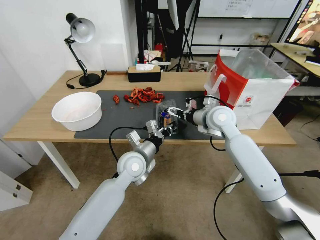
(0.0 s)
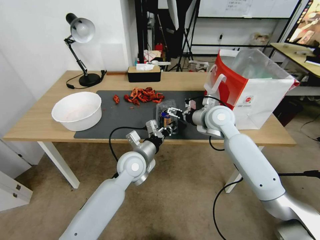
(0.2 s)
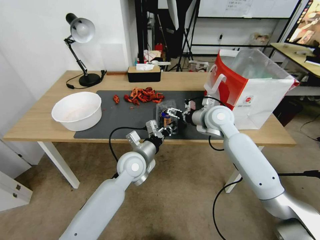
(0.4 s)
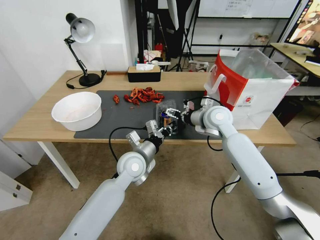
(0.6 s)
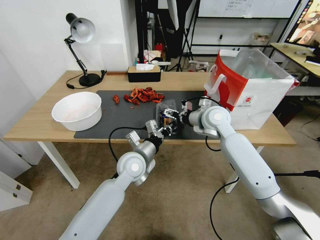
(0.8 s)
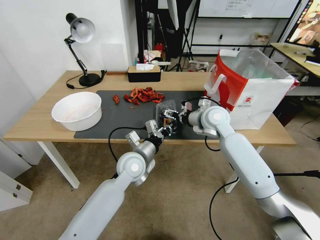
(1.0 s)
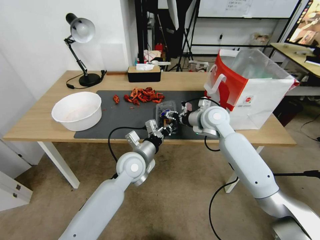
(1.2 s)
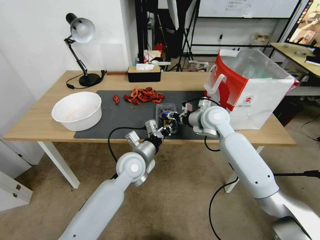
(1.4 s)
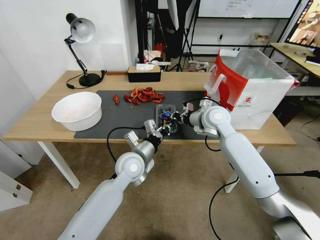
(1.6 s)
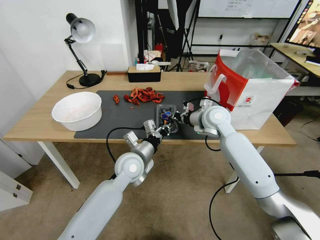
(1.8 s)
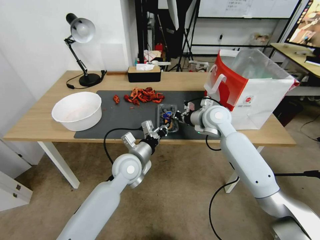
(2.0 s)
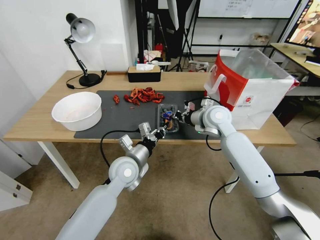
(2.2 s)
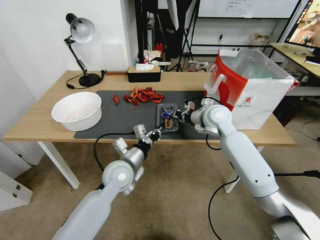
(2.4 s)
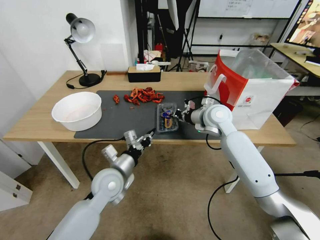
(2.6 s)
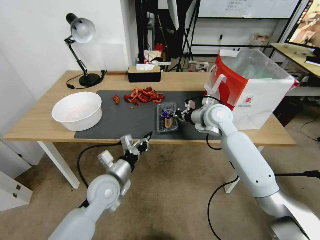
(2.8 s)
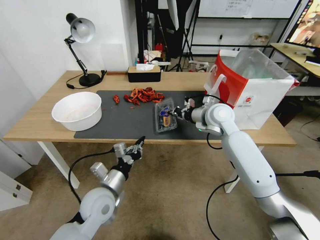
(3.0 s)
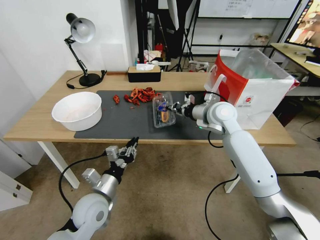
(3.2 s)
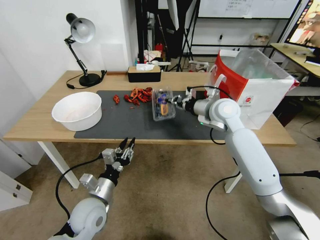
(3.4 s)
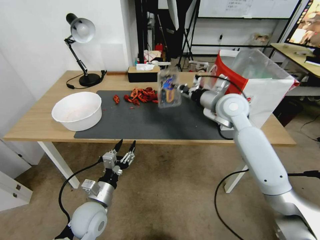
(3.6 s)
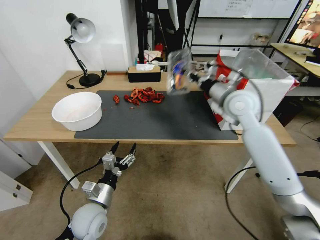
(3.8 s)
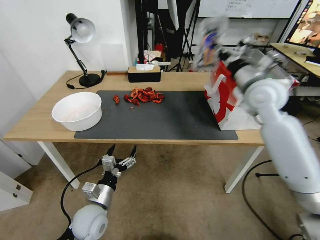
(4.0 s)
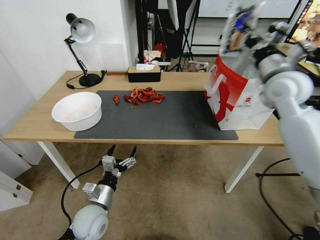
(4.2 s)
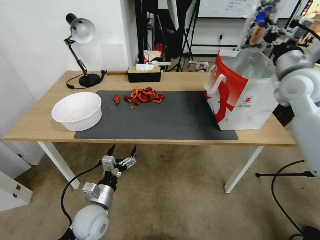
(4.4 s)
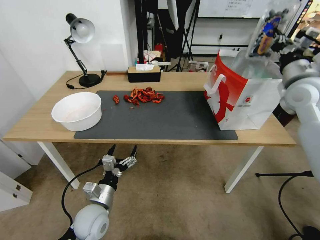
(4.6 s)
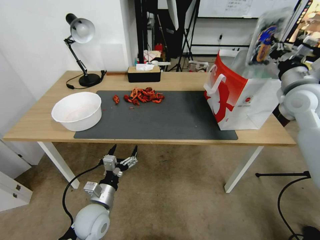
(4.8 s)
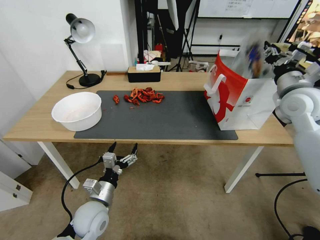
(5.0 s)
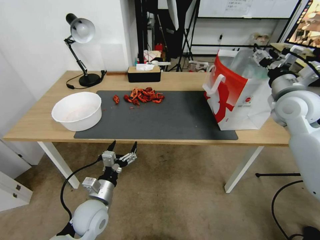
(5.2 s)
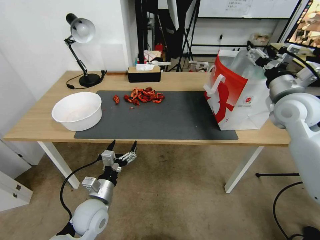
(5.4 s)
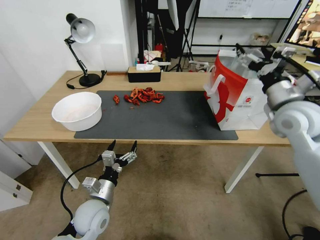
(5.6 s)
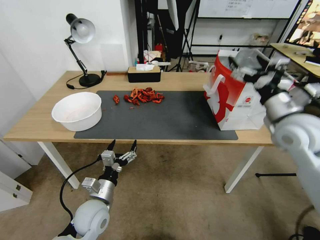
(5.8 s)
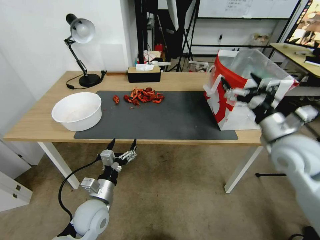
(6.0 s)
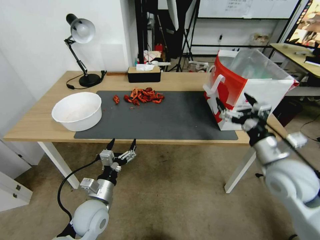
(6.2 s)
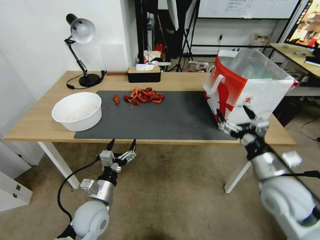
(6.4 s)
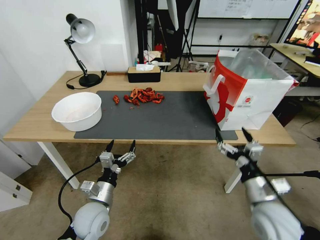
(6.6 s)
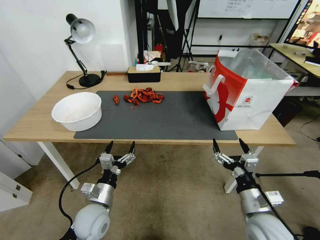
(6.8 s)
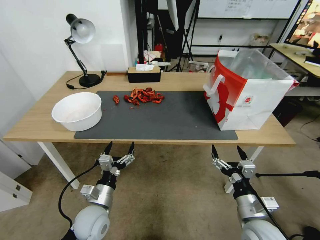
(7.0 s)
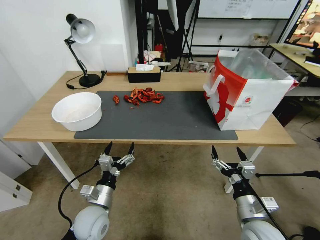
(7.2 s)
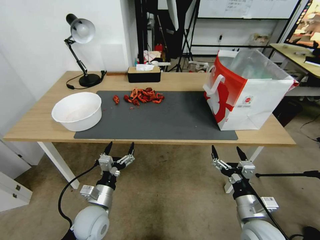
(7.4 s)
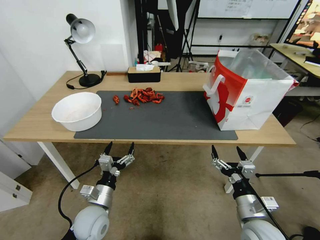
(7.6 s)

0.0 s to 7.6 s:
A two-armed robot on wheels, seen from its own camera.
Task of the whole recording: Close the takeout container lid, then place the container into the takeout bag.
0.0 to 1.6 s: The right gripper closes up.
1.6 to 3.0 s: The left gripper moves backward and to the left, approximately 15 cm.
3.0 to 4.6 s: The left gripper moves downward, some 5 cm, and opens; the right gripper heads to the right and upward, covering approximately 25 cm.
4.6 to 6.0 s: The right gripper shifts about 15 cm backward, downward and to the left, and opens its fingers.
6.0 to 7.6 s: The right gripper goes about 25 cm downward and backward.

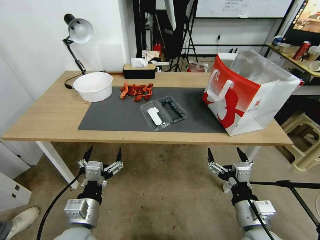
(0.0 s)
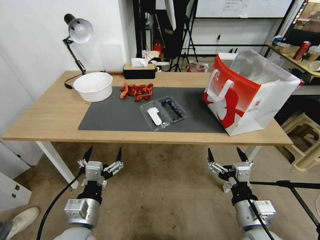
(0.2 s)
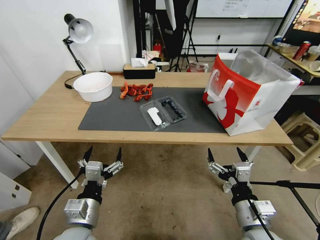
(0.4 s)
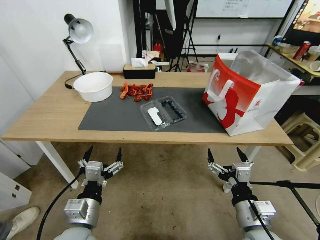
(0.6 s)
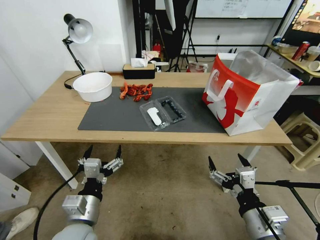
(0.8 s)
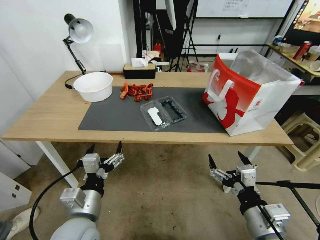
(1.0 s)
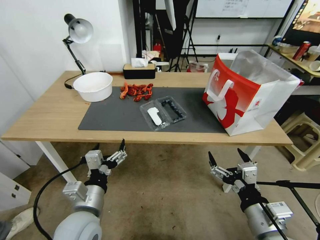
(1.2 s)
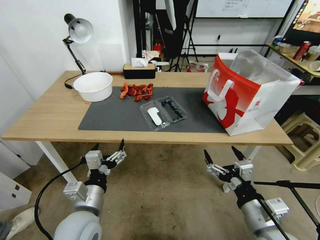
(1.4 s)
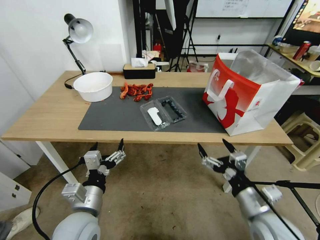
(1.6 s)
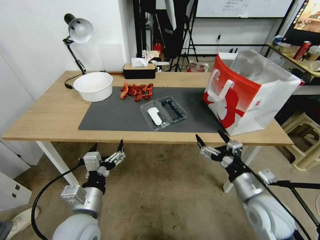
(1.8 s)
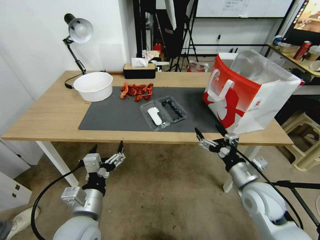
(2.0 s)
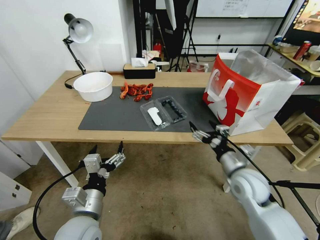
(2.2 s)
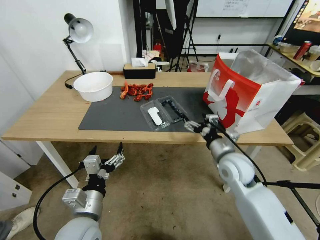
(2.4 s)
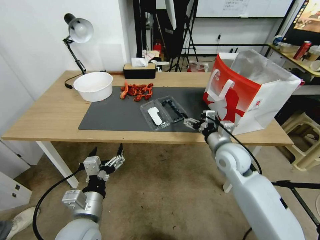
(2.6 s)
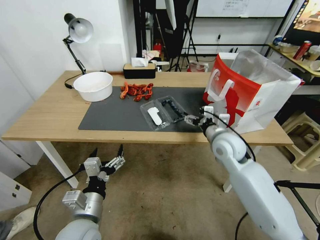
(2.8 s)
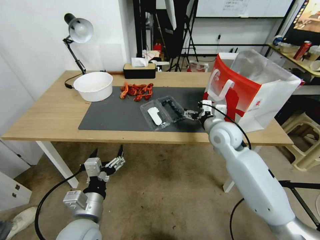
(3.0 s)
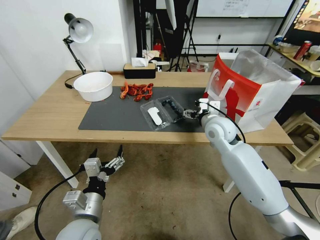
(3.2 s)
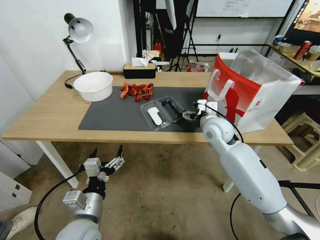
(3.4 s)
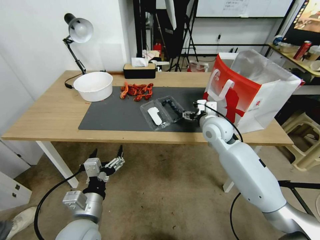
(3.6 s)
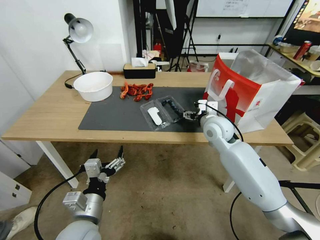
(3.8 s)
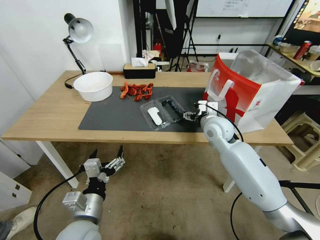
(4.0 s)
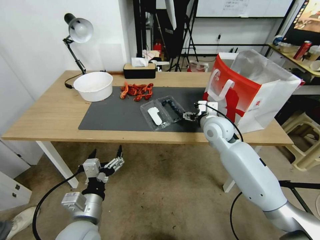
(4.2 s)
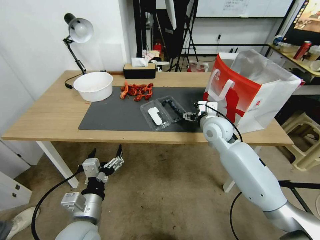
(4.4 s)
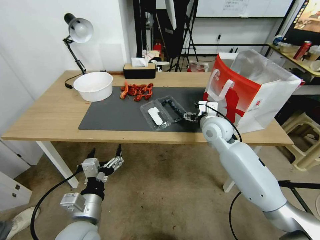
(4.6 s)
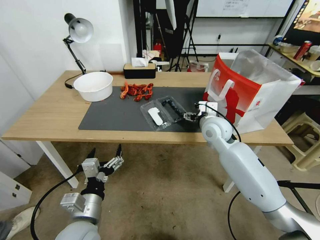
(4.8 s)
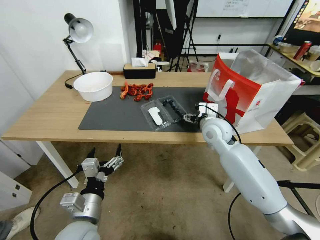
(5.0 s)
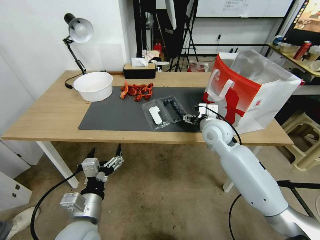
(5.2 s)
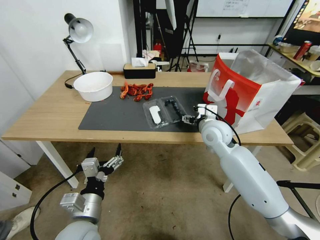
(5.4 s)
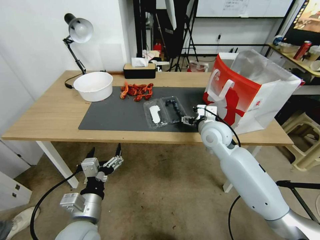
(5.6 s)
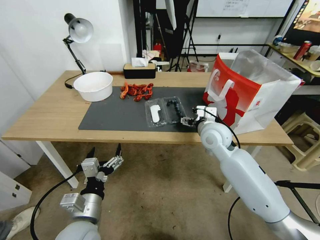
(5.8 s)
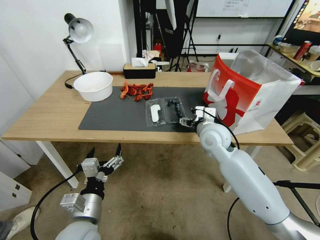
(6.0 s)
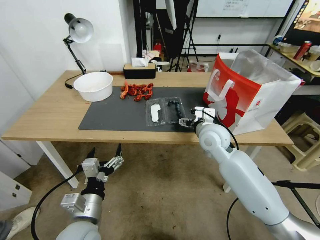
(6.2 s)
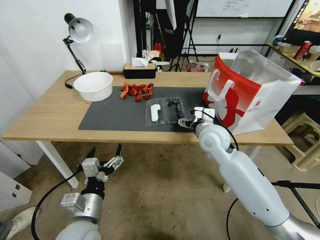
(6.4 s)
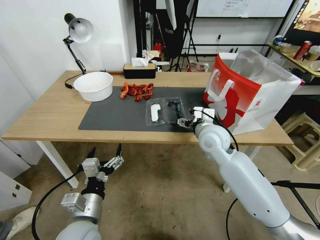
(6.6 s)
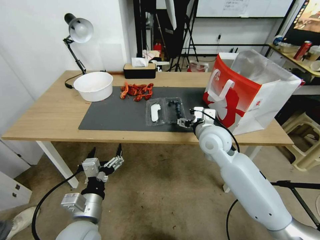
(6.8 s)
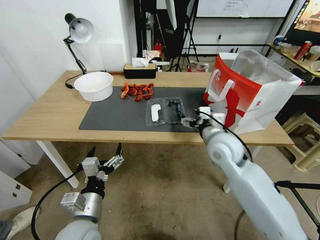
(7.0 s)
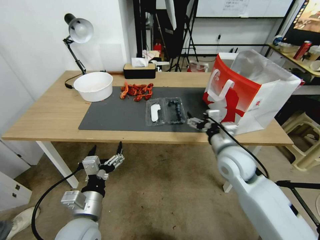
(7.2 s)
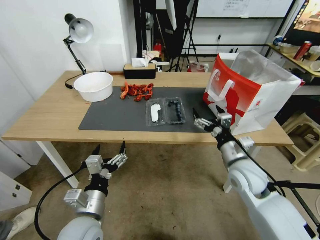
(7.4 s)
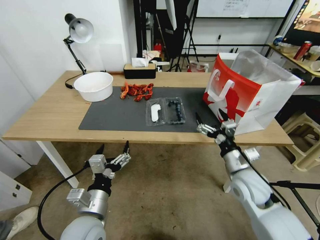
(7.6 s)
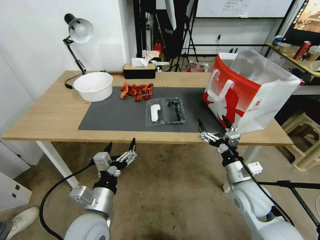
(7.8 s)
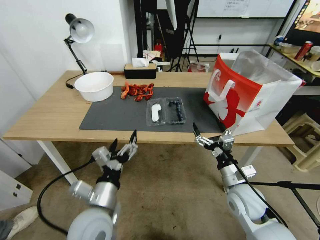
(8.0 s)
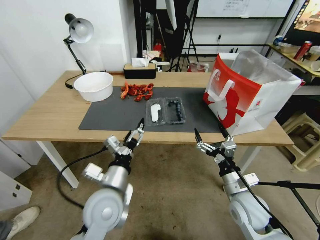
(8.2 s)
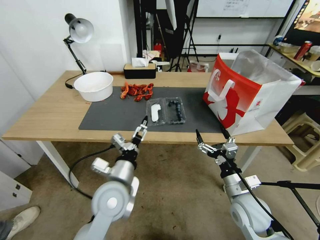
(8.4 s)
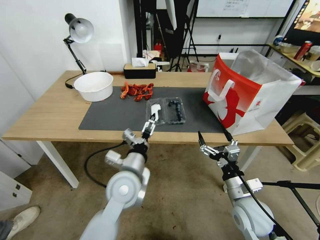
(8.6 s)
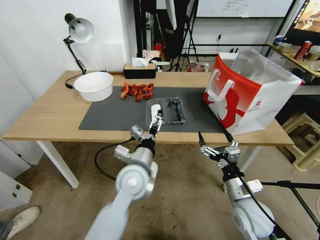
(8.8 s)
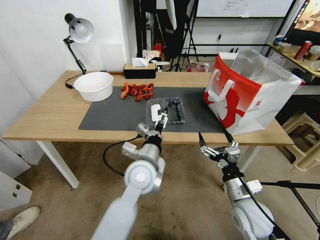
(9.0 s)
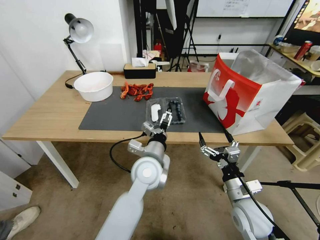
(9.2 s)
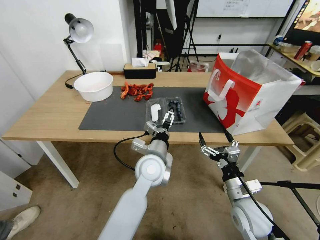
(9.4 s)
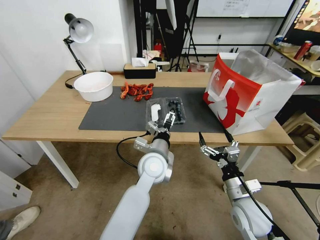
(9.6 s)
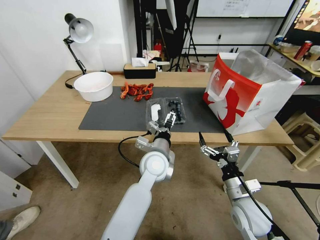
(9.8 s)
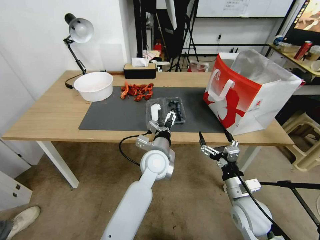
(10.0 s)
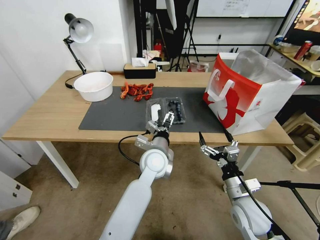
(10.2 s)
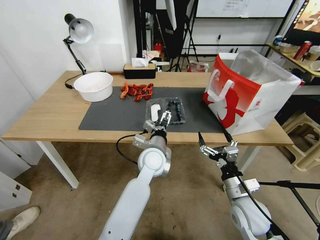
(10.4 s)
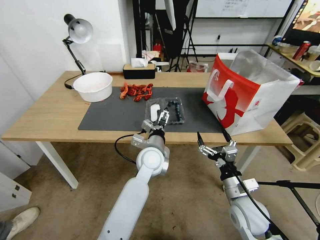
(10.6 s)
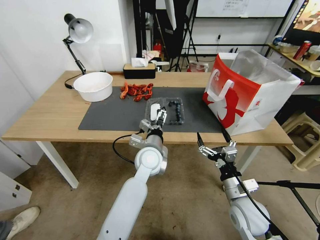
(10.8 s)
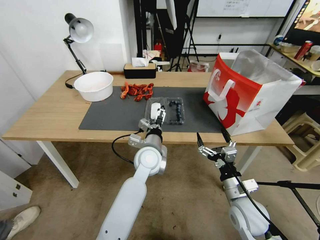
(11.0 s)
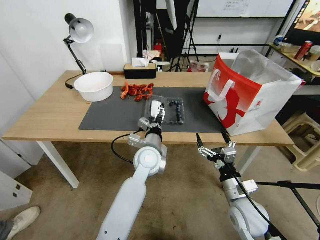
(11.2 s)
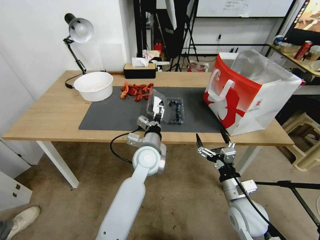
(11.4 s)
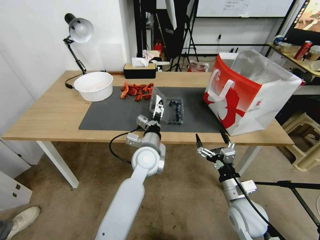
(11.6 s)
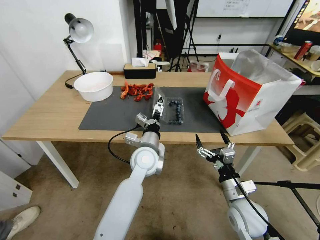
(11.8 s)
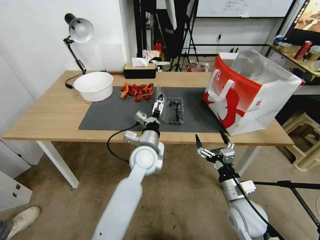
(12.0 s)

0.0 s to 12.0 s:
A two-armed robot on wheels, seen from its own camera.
Task of the whole recording: Close the takeout container lid, then place the container into the takeout bag.
1.6 to 3.0 s: The right gripper goes some 25 cm forward.
3.0 to 6.0 s: The grippers make only small movements.
6.0 to 7.6 s: The right gripper shifts roughly 20 cm backward, to the right and downward.
7.6 to 9.0 s: The right gripper moves backward, some 5 cm; the left gripper shifts about 20 cm forward and to the right.
9.0 to 10.4 s: The left gripper moves forward, roughly 5 cm.
10.4 to 12.0 s: The grippers move only a little.

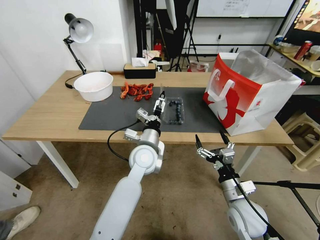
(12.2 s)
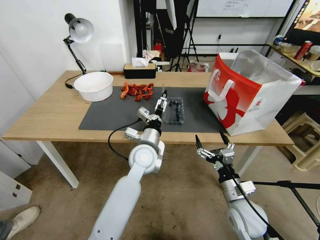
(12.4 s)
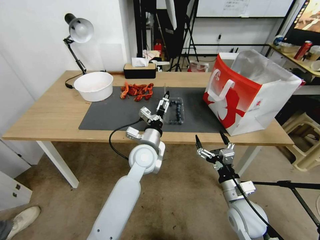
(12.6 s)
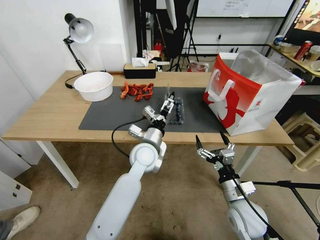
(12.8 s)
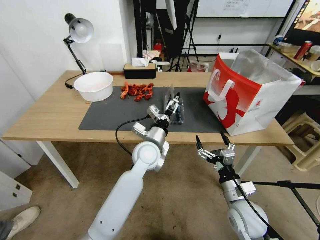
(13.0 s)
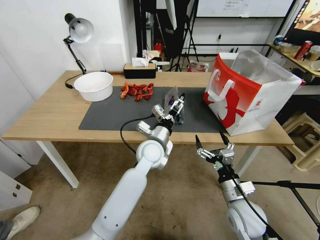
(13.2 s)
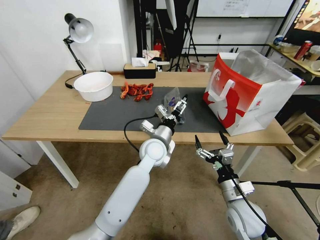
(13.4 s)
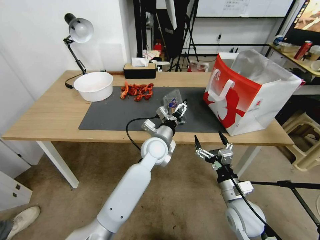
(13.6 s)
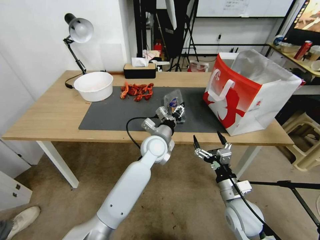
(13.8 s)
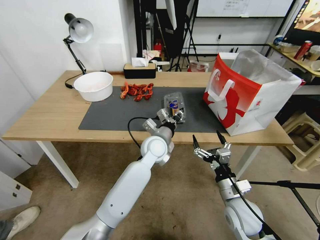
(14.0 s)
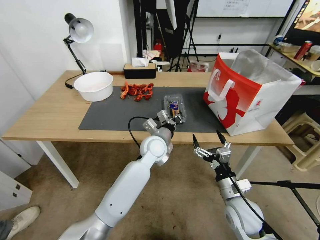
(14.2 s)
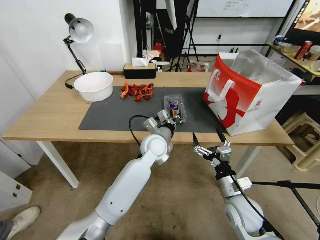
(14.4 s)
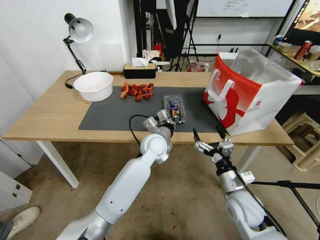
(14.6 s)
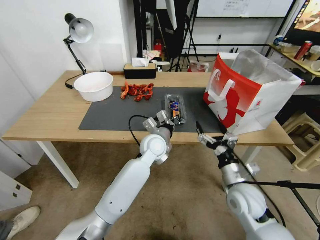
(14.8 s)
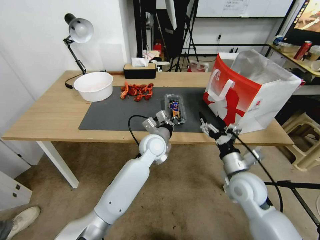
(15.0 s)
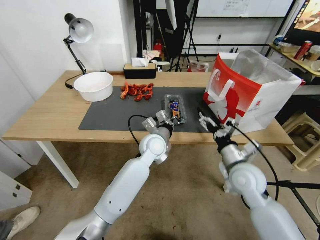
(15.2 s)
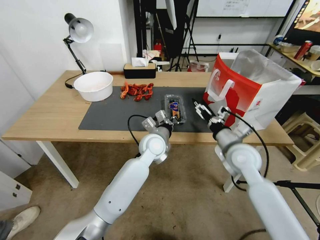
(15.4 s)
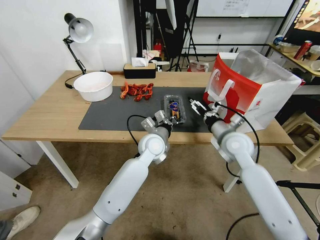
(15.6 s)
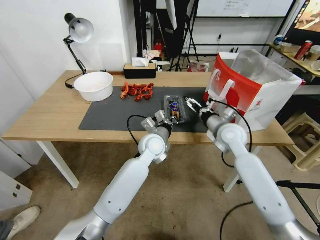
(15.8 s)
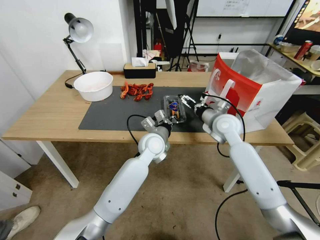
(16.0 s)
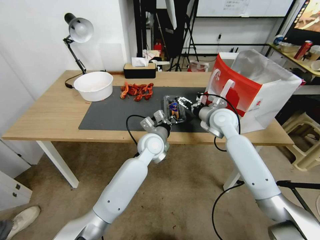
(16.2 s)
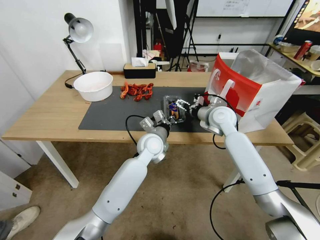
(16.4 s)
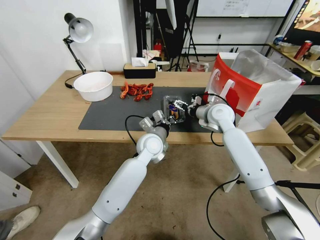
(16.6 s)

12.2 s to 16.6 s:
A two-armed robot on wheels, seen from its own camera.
Task of the whole recording: Close the takeout container lid, then place the container into the takeout bag.
12.2 to 13.6 s: The left gripper ends up approximately 5 cm from where it was.
13.6 to 15.2 s: The left gripper closes up. The right gripper shifts about 15 cm upward and forward.
15.2 to 16.6 s: The right gripper heads forward, covering roughly 20 cm.
